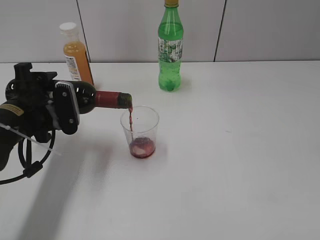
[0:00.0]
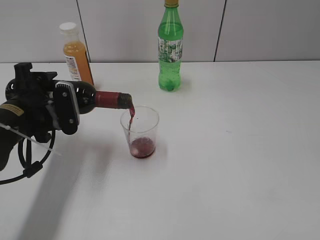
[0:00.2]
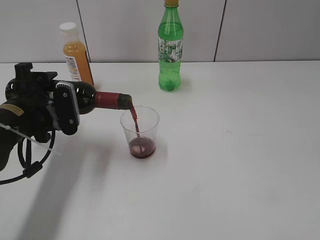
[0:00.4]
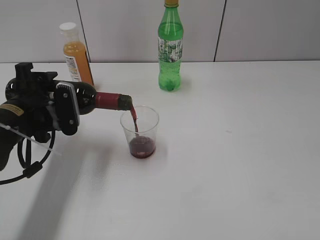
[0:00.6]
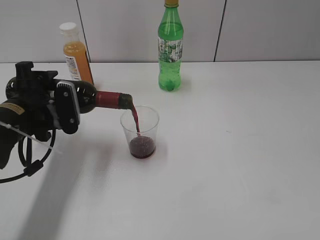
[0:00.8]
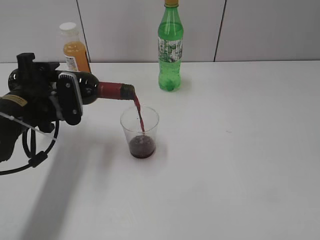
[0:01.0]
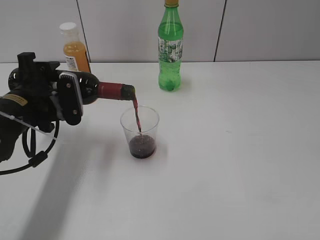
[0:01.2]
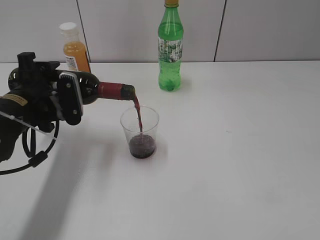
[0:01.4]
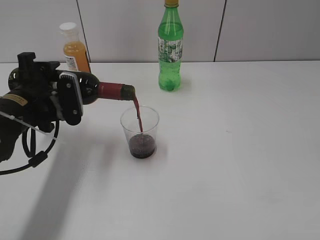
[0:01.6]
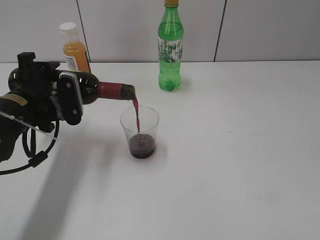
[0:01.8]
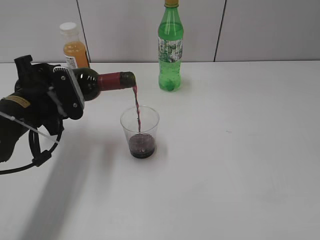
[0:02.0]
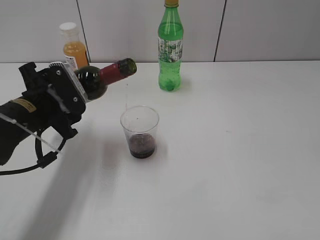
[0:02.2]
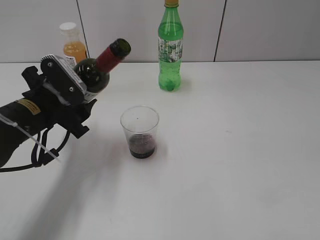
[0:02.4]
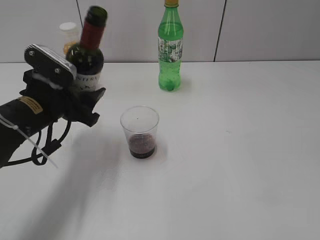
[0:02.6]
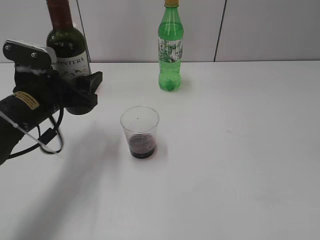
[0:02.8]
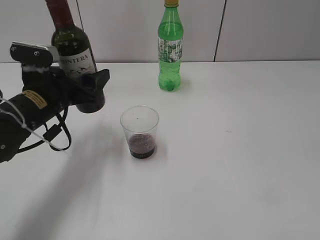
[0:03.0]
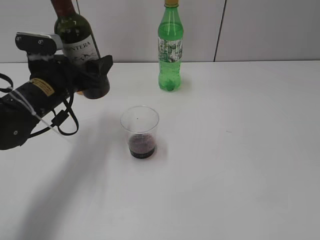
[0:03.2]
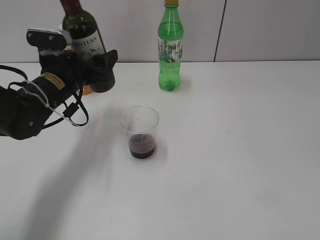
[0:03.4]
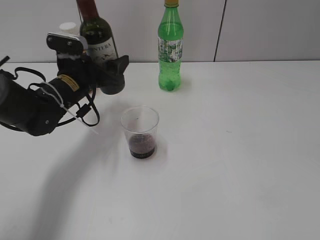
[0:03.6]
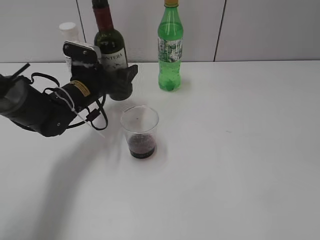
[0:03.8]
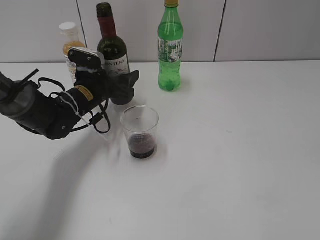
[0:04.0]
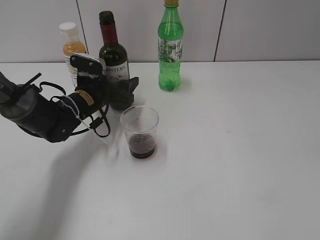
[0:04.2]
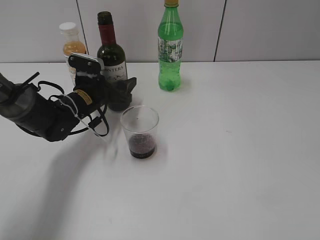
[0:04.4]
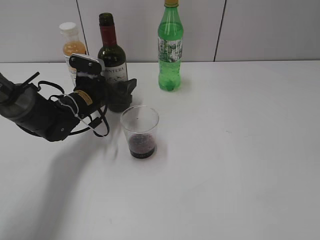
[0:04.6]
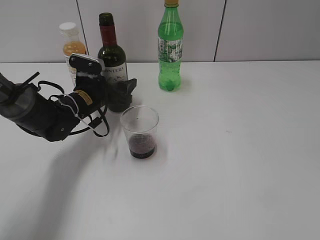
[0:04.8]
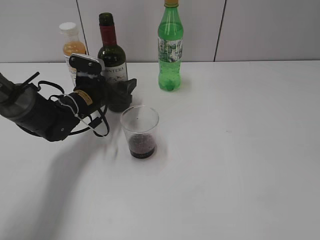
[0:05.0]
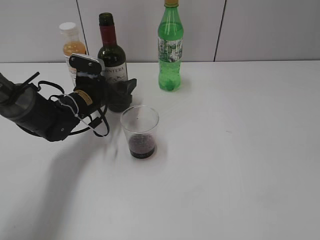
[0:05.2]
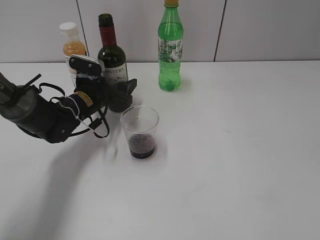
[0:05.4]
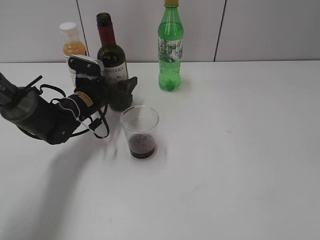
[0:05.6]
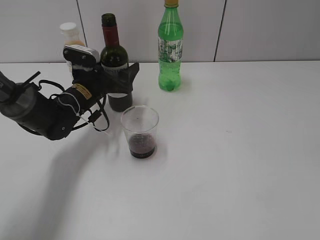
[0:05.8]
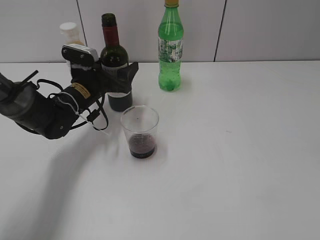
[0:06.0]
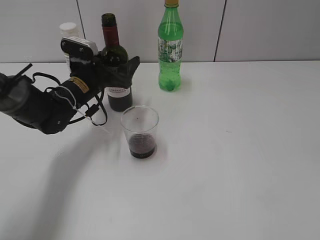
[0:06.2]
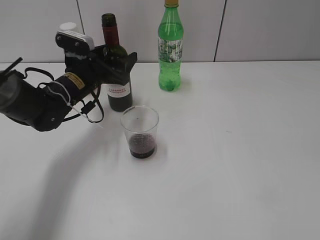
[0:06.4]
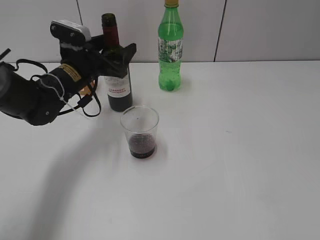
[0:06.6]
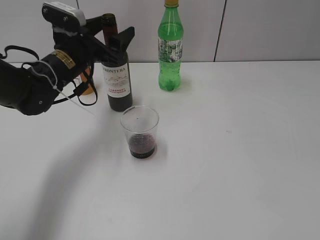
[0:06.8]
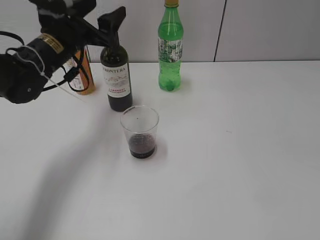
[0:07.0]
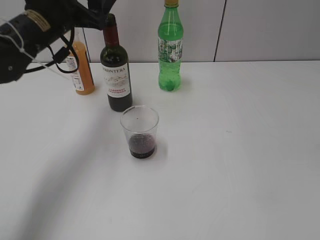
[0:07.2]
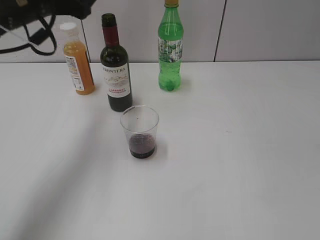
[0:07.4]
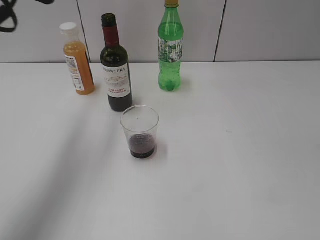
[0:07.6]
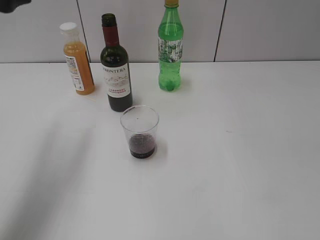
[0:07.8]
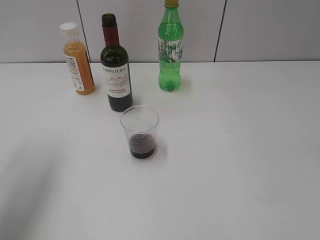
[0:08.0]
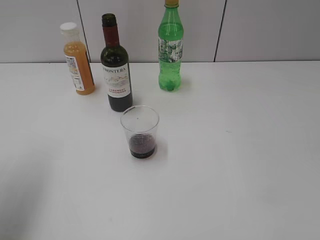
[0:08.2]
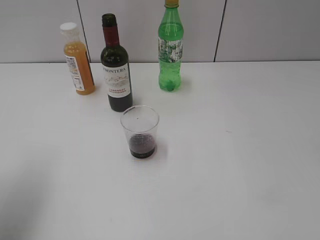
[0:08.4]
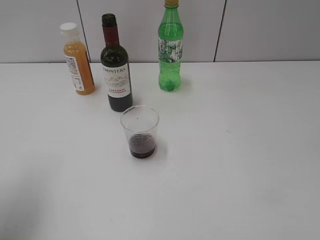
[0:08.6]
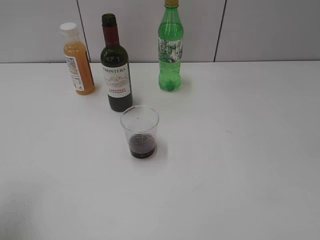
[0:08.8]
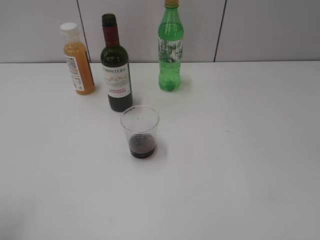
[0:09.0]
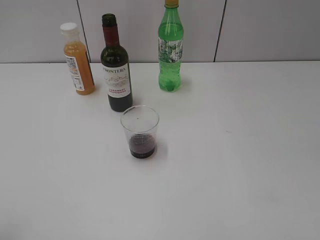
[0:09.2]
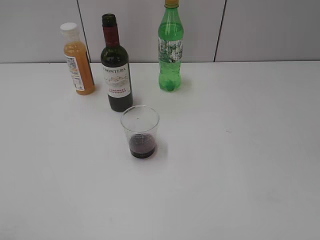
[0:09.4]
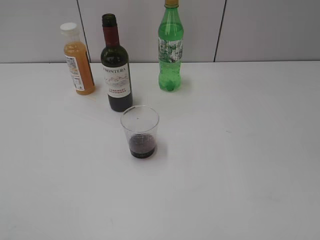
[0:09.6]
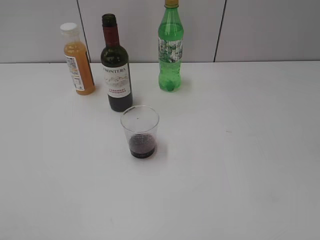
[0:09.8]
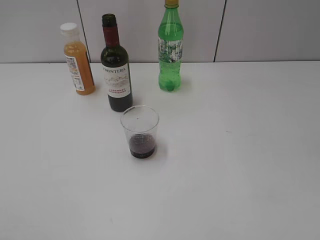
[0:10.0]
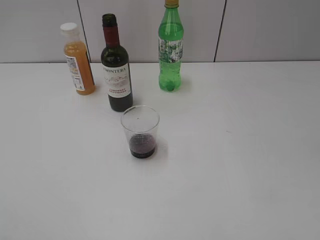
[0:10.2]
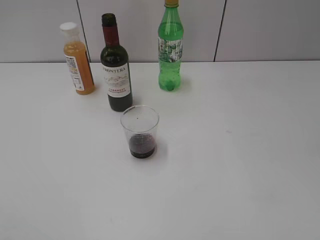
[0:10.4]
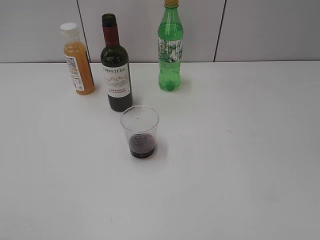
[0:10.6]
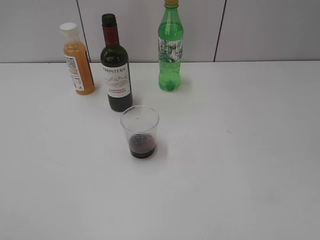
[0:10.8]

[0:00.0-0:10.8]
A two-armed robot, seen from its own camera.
Step, 0:00.0 to 0:02.2: Pour the red wine from bottle to cup with left gripper.
Step, 0:02.6 to 0:06.6: Place the red wine bottle on the table with left gripper.
0:00.0 to 0:01.6: The grippers stay close to where they were, moving slightly.
0:03.0 to 0:04.6: The left gripper is displaced forward and downward by about 15 cm.
0:04.6 to 0:06.2: The left gripper opens its fingers.
0:06.2 to 0:07.8: The left gripper shifts roughly 25 cm upward and backward.
0:07.8 to 0:09.2: The left gripper travels backward and downward by approximately 20 cm.

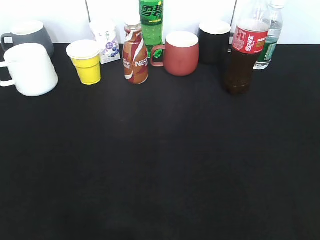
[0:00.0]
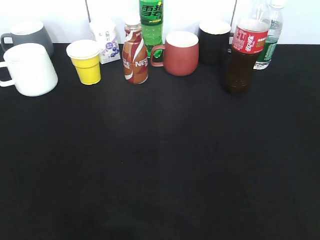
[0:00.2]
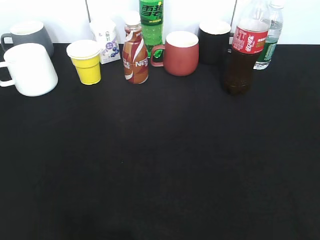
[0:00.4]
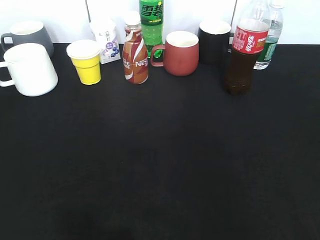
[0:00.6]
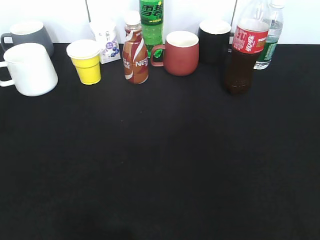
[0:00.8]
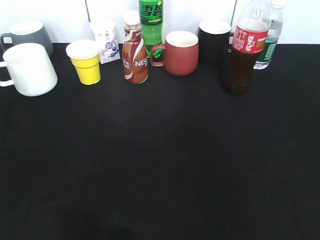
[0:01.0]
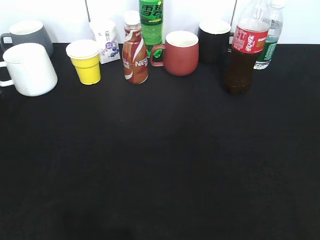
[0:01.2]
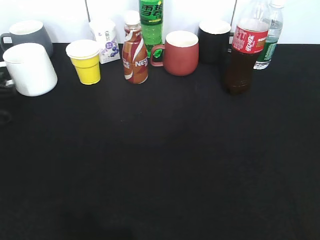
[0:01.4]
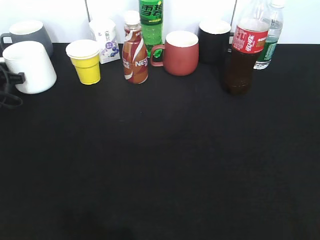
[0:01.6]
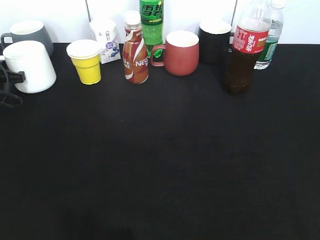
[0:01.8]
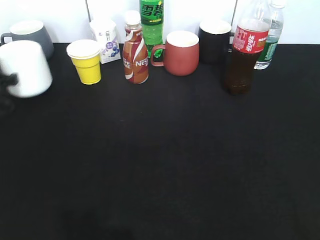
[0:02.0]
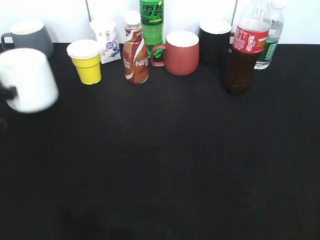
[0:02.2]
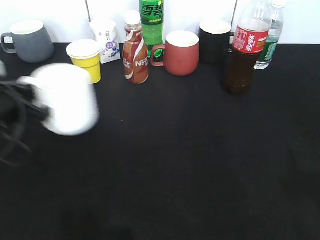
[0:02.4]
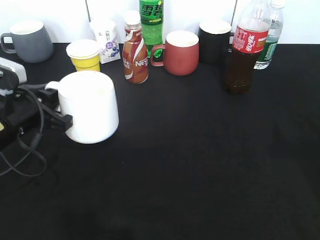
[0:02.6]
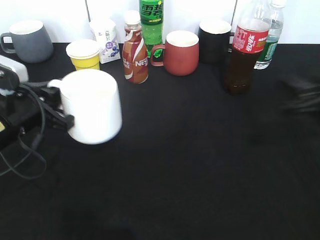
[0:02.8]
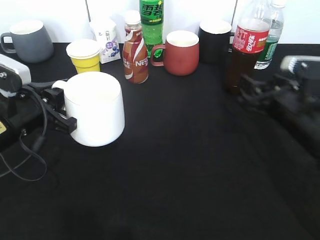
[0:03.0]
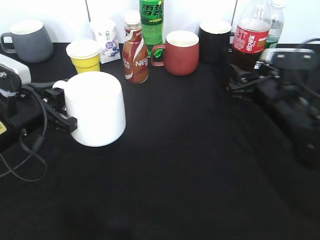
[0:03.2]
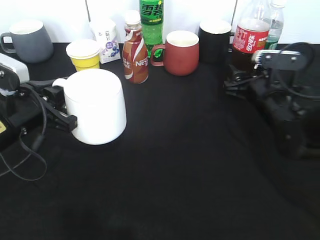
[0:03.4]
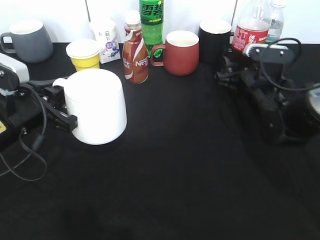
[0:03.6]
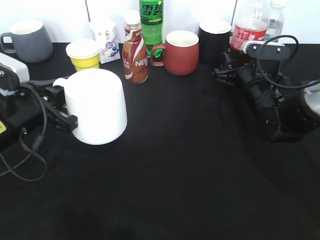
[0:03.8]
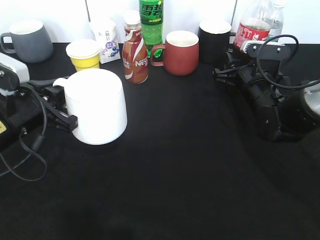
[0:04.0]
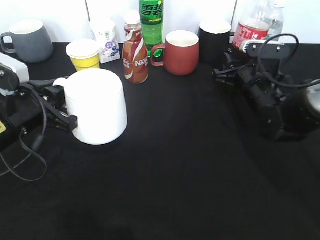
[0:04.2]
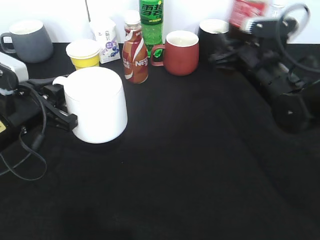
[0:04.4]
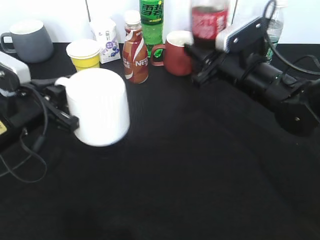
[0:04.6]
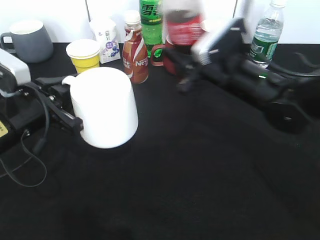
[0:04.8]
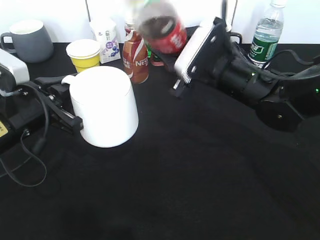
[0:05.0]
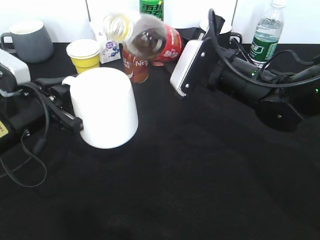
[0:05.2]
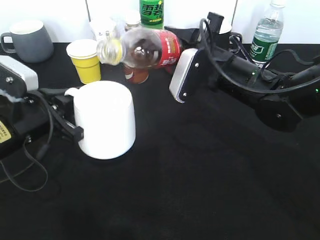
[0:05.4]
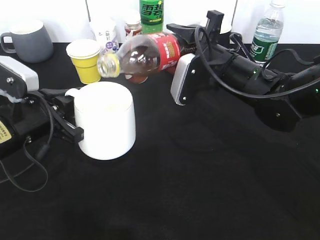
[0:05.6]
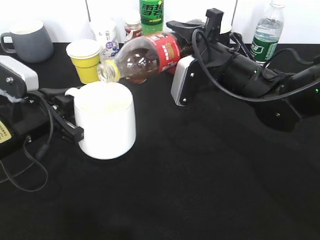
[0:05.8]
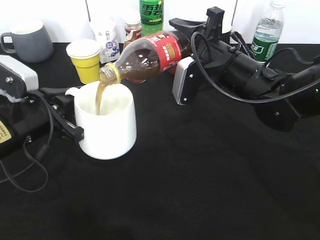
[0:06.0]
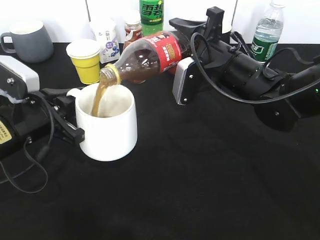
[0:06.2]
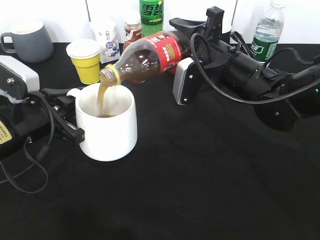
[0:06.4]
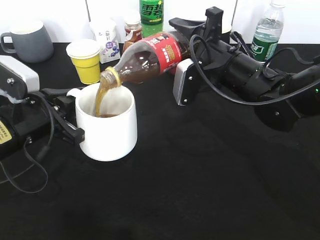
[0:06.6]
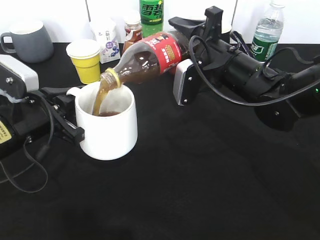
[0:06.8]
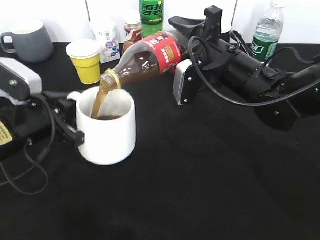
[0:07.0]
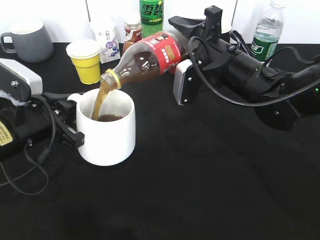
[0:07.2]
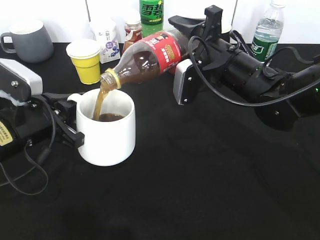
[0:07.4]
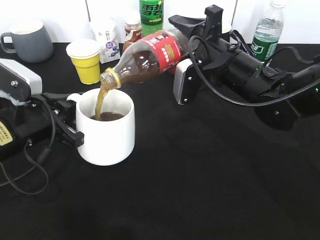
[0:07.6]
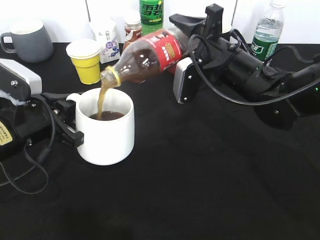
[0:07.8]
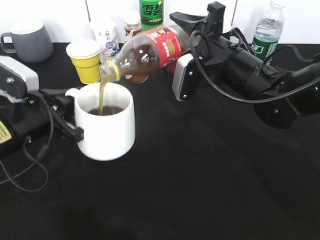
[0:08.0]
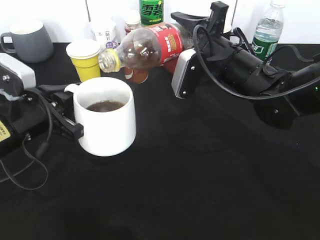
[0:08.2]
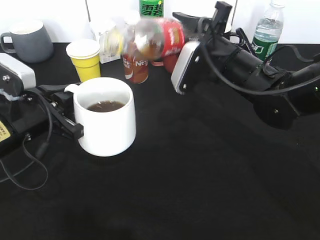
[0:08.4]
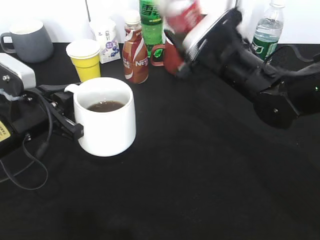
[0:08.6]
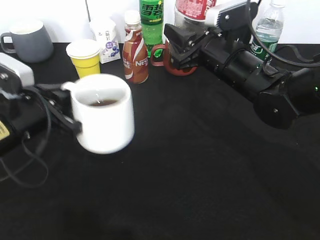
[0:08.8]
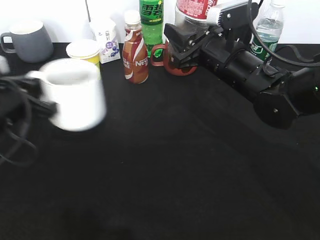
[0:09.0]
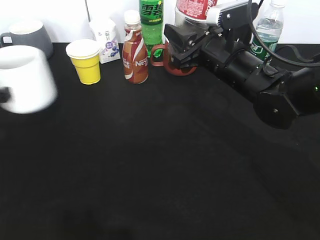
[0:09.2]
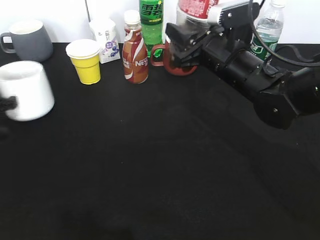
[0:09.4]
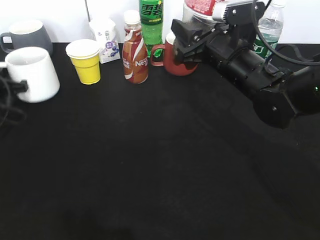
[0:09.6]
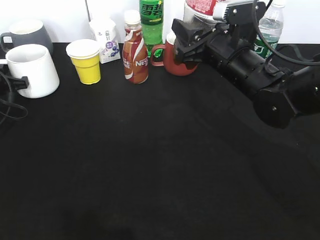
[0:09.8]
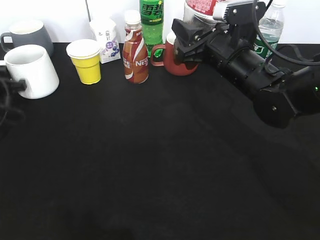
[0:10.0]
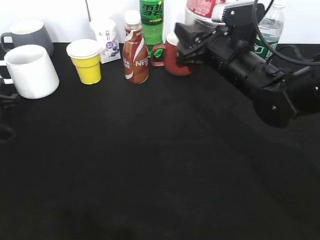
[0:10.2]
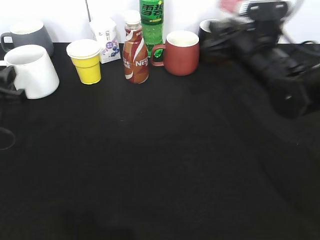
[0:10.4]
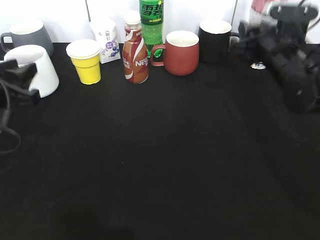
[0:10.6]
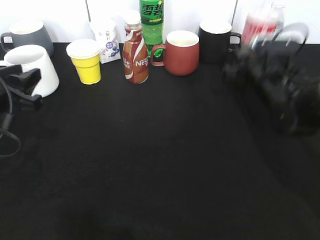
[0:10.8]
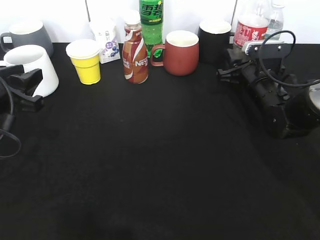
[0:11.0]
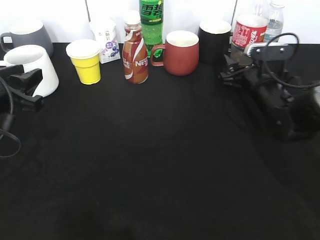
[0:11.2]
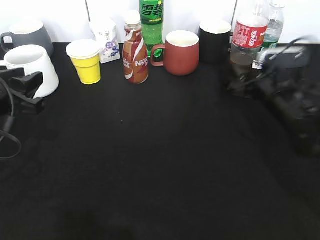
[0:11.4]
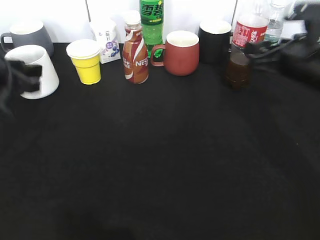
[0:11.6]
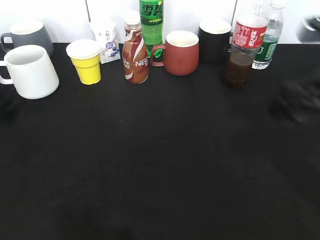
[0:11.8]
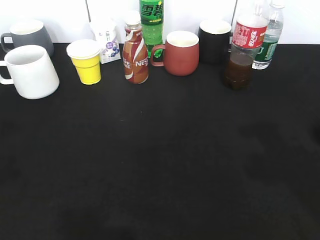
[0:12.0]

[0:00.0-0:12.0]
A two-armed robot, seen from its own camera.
Step, 0:00.0 to 0:01.6: Grasp the white cup with left gripper.
Step, 0:01.8 to 0:02.6: Lift the white cup with left gripper.
Step, 0:02.8 to 0:04.0: Grasp the bottle with cola with right gripper.
Step, 0:04.2 to 0:08.4: Pour the cola from bottle to cup with right gripper.
Step, 0:08.6 to 0:10.4: Place the white cup on the table with left gripper.
Step, 0:10.6 to 0:11.6: Place the cola bottle on the table with right gripper.
0:00.0 to 0:01.6: The left gripper moves forward and downward, about 40 cm, and closes.
0:01.6 to 0:03.0: The left gripper moves backward and to the right, approximately 20 cm. The right gripper goes roughly 30 cm forward and downward.
0:03.0 to 0:04.4: The right gripper goes some 10 cm forward, and closes its fingers.
0:04.4 to 0:06.0: The right gripper is displaced to the left by some 5 cm.
0:06.0 to 0:07.6: The grippers stay close to where they were, moving slightly.
0:09.0 to 0:10.4: The right gripper heads to the right, covering roughly 5 cm. Meanwhile the left gripper goes forward and returns, some 10 cm each way, and opens up.
0:10.4 to 0:12.0: The right gripper is displaced backward, upward and to the right by some 25 cm, and opens its fingers, while the left gripper heads upward and backward, covering about 15 cm, and opens its fingers.
